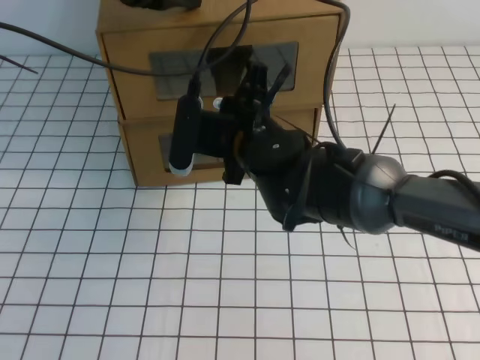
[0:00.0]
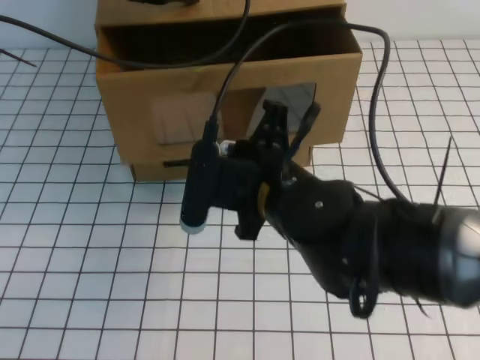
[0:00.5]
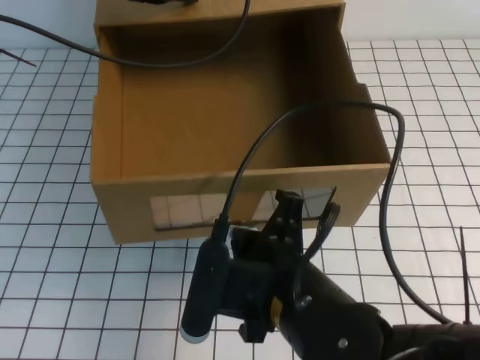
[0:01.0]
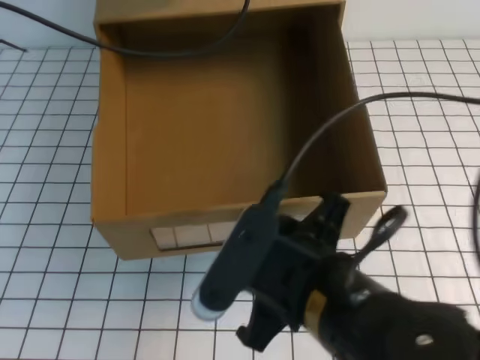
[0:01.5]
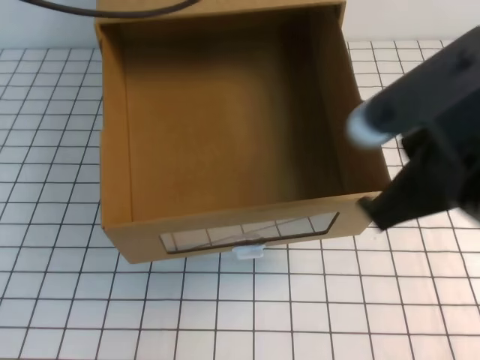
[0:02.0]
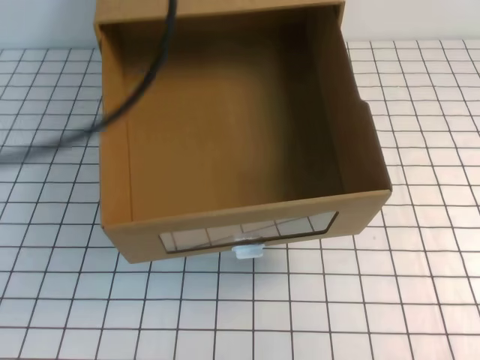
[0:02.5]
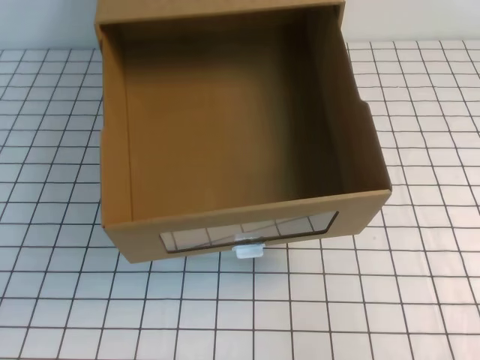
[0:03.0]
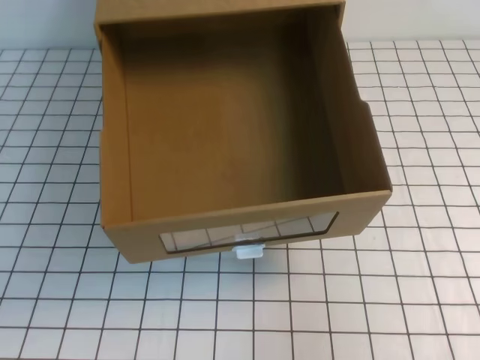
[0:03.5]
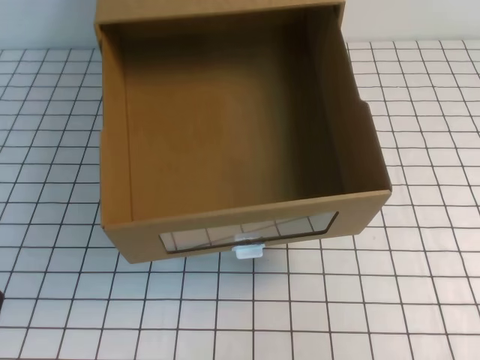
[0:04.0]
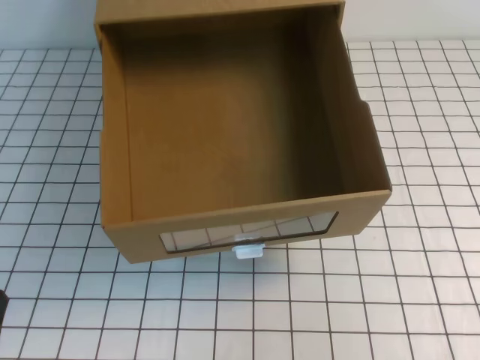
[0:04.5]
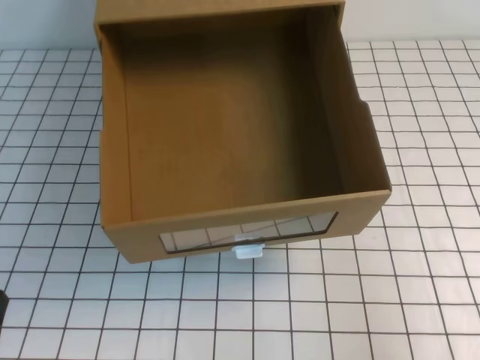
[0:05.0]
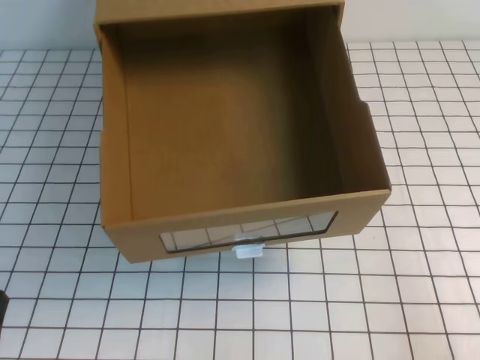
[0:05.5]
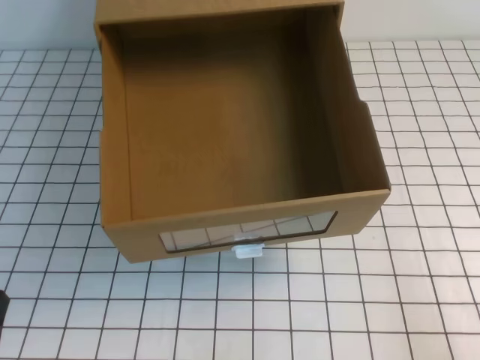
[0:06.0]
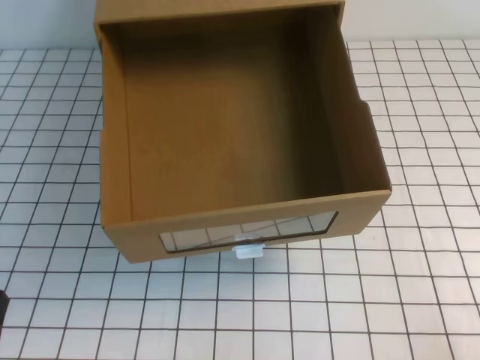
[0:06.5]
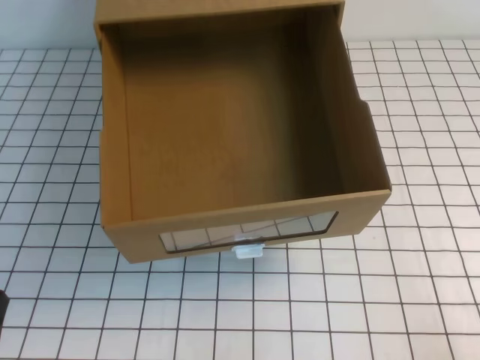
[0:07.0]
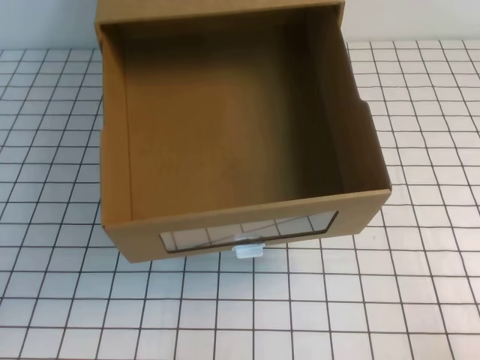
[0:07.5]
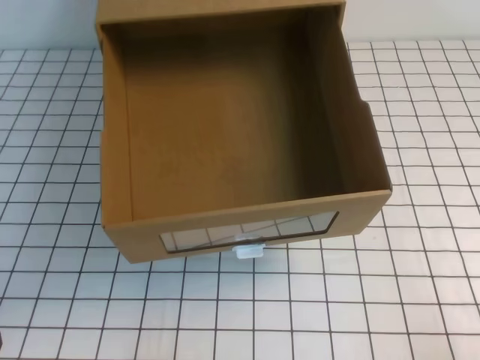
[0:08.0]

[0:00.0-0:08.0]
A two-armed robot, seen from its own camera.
Task of the whole recording: open the shoebox on the white tablecloth.
Step, 0:00.0 to 0:08.0: Open the shoe box.
0:00.0 to 0:02.0: The right gripper travels backward, to the right and upward by some 25 cm, and opens, then closes once more; the left gripper travels upward and backward by some 10 cm.
0:02.0 to 0:04.0: The right gripper heads to the right, covering about 15 cm, while the left gripper shifts approximately 40 cm backward and downward.
0:04.0 to 0:06.0: The right gripper moves downward, roughly 15 cm.
